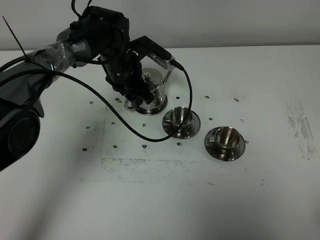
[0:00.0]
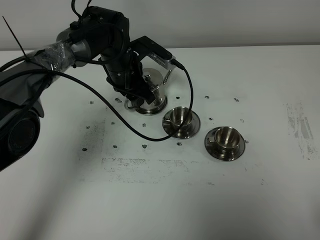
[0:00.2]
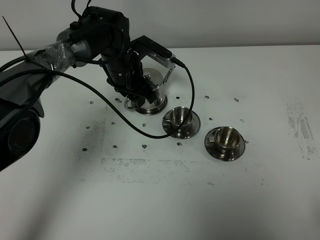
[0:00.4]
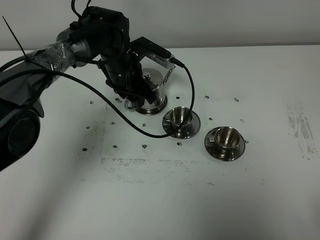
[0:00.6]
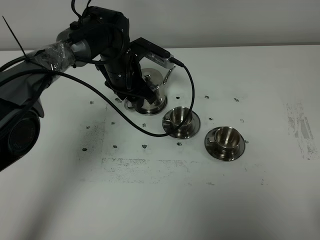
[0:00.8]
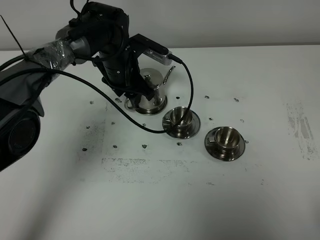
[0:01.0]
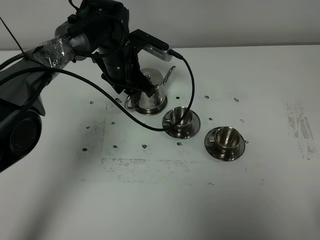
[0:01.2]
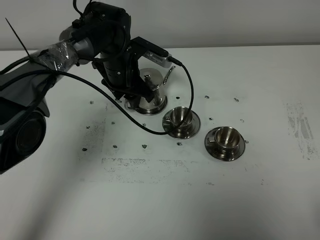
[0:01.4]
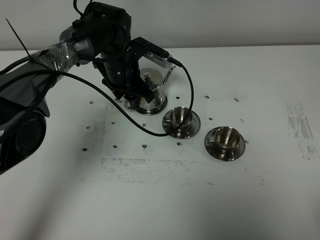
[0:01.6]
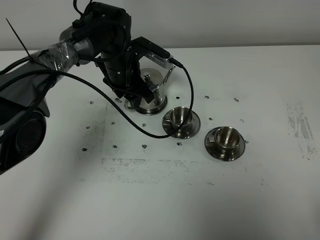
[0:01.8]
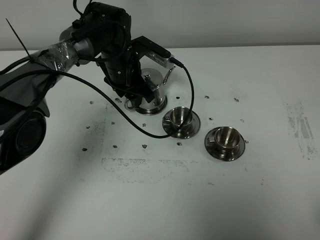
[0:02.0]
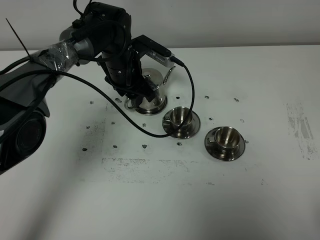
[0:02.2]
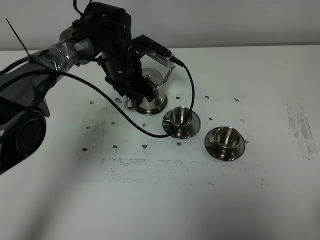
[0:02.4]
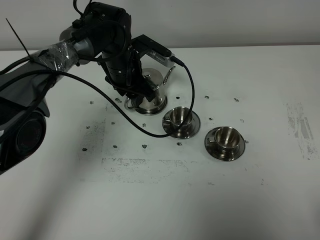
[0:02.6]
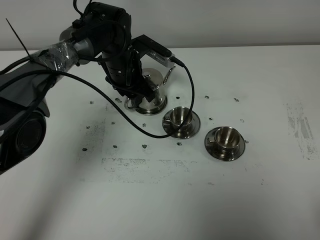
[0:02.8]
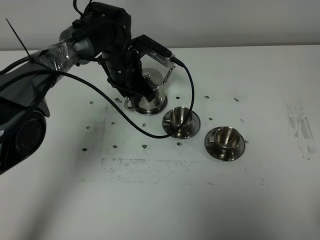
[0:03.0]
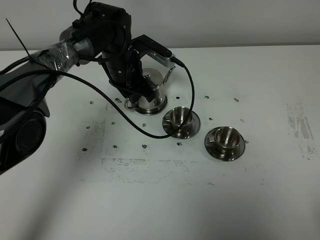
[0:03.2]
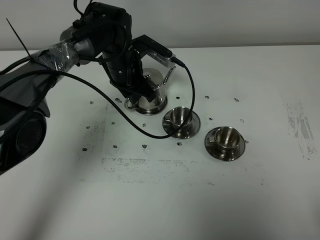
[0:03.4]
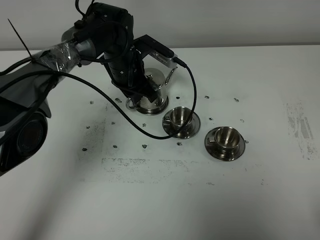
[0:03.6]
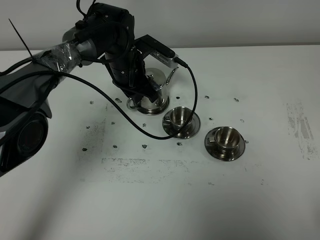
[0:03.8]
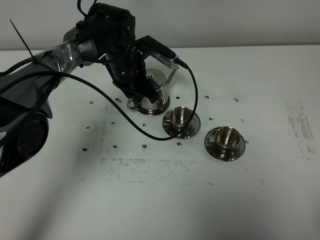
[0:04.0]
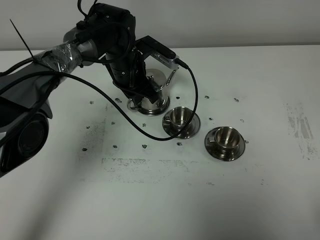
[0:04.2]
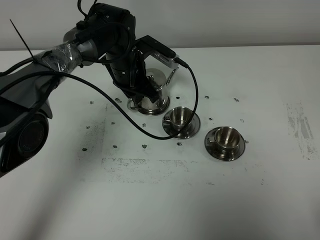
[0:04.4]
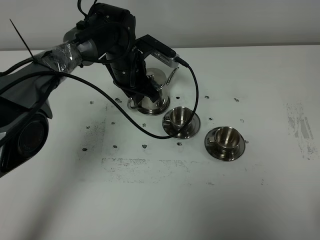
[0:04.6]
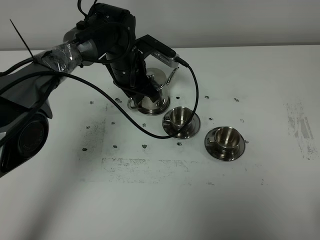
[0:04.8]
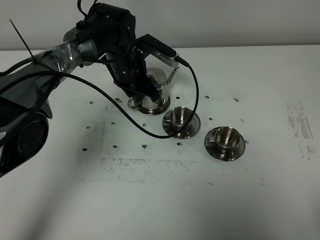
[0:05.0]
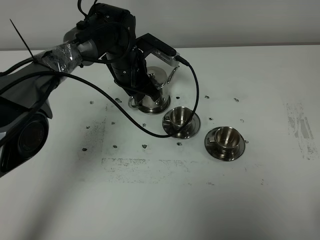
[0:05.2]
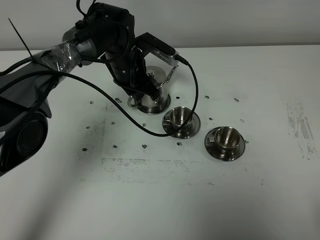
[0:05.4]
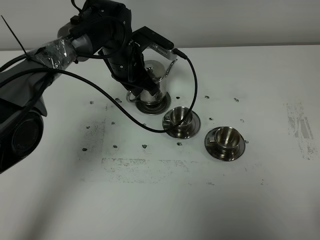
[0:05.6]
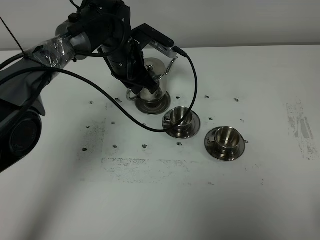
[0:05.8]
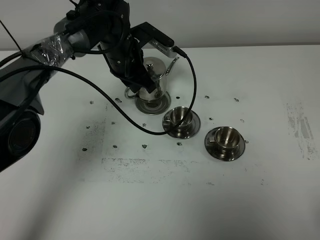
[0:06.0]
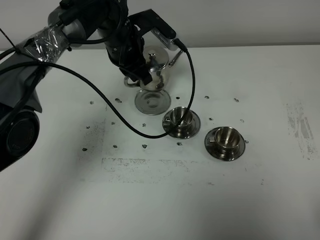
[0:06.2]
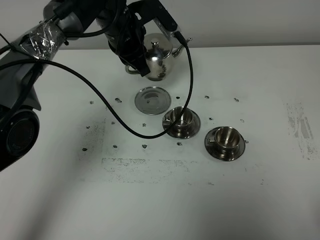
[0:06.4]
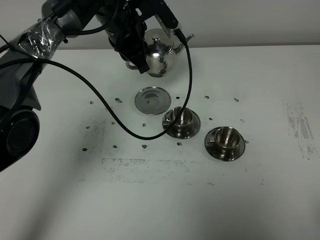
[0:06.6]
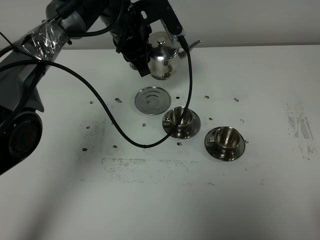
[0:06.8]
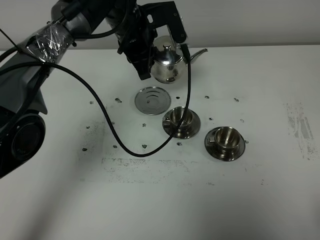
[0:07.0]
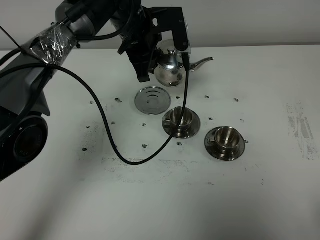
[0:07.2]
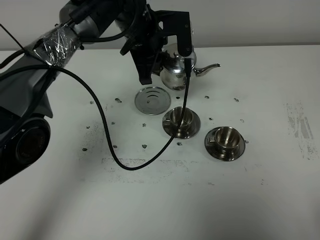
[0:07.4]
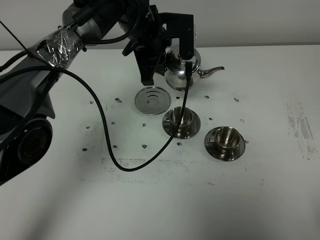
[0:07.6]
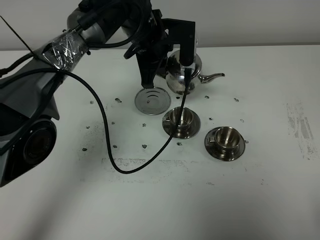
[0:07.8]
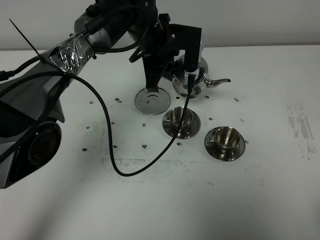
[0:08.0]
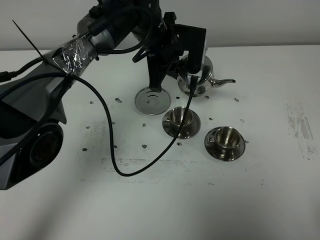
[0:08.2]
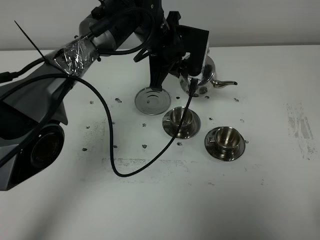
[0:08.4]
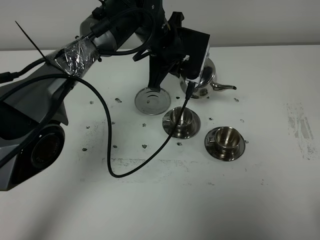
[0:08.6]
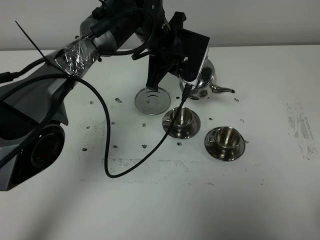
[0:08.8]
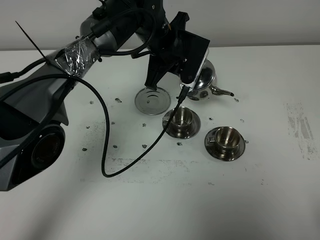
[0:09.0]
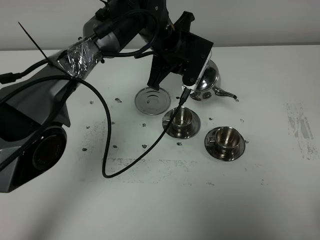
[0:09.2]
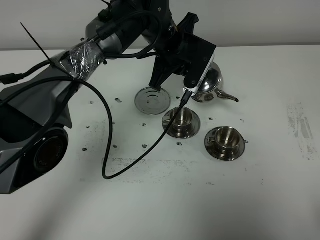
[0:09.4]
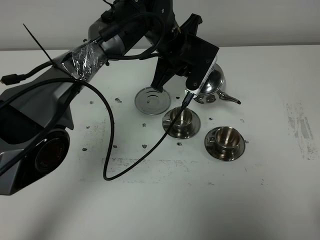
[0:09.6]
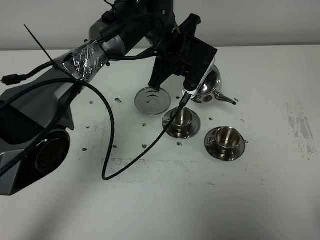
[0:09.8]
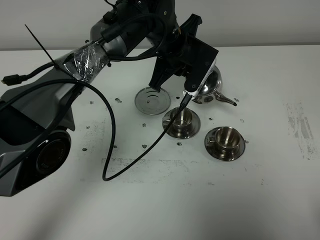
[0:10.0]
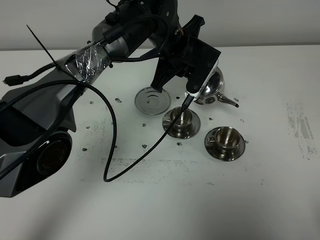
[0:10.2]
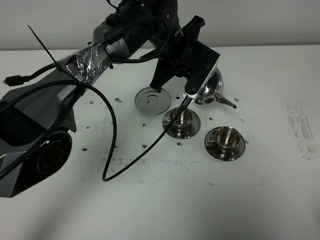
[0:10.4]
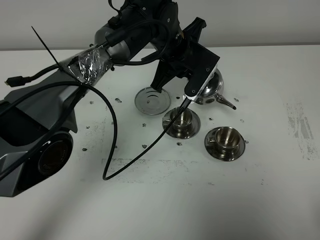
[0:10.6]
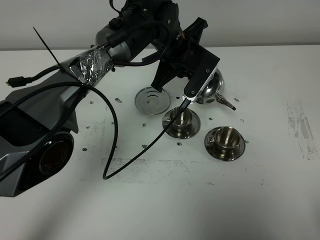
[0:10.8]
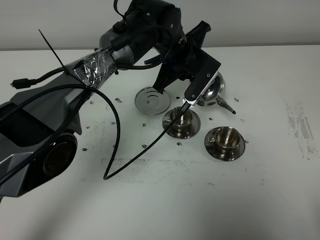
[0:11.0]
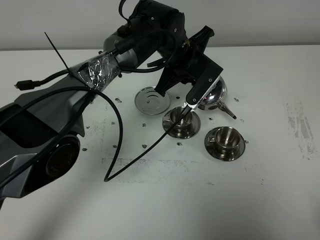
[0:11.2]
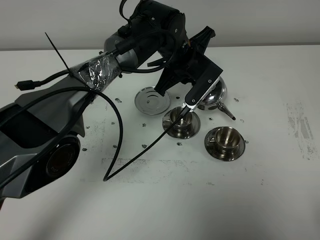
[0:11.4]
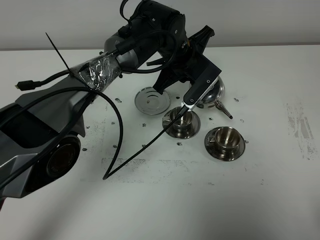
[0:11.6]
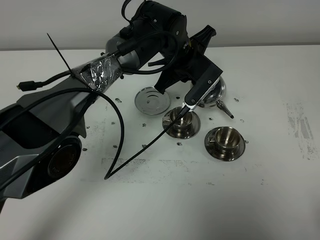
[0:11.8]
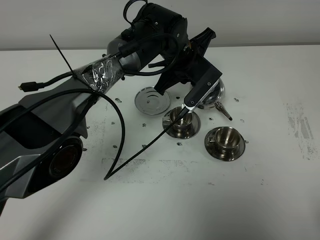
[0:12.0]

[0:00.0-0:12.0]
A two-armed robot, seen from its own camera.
Task of the whole recording: grasp the stainless steel teapot and pour the tea into the two stainless steel teacups one by one, put the stainless steel teapot back in its original place.
Step, 0:00.0 to 0:05.8: Pick up the teapot with the left gripper.
0:00.0 to 0:01.6: The grippers make only small movements.
0:01.6 to 0:03.0: The left gripper closes.
0:03.0 to 0:04.4: Both grippers stay put.
0:04.4 to 0:06.0: The grippers make only small movements.
0:06.0 to 0:07.6: The left gripper travels upward by approximately 5 cm.
0:09.0 to 0:10.4: The grippers make only small movements.
0:10.4 to 0:12.0: The grippers move only a little.

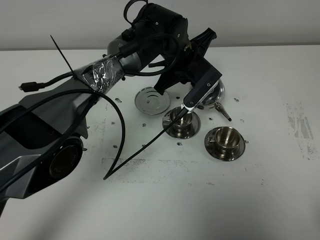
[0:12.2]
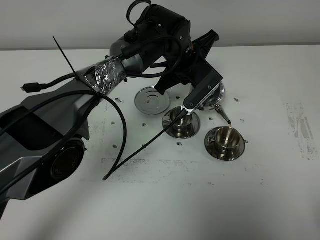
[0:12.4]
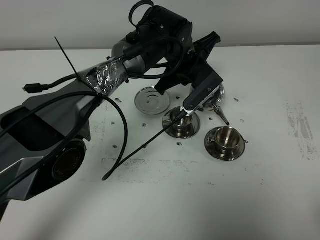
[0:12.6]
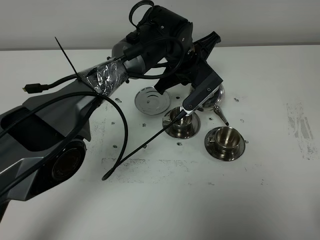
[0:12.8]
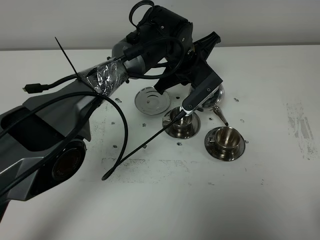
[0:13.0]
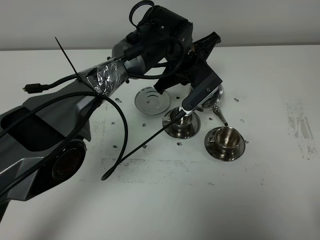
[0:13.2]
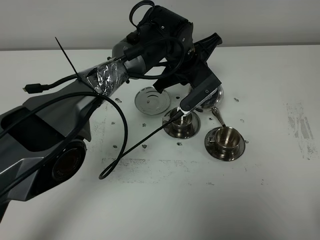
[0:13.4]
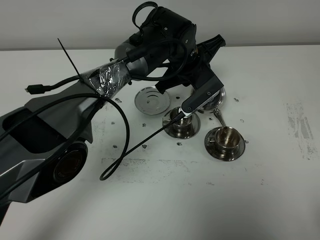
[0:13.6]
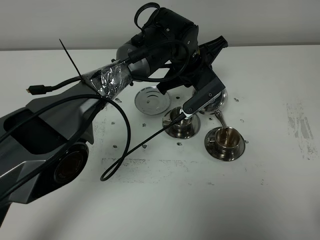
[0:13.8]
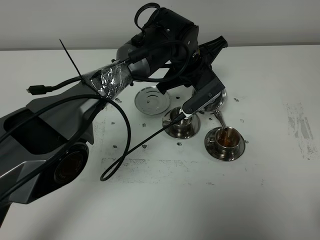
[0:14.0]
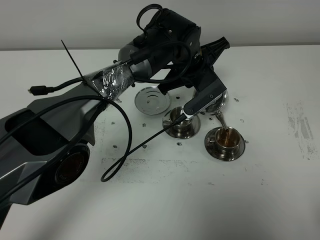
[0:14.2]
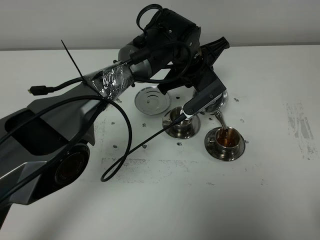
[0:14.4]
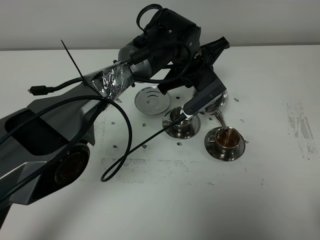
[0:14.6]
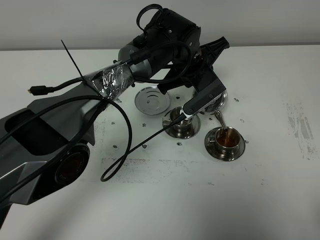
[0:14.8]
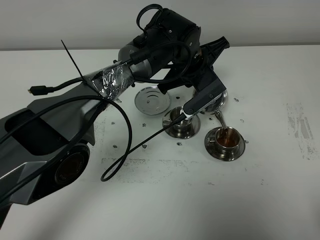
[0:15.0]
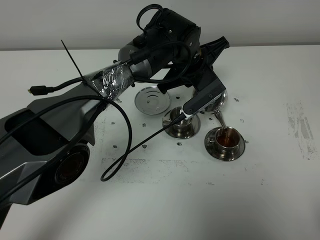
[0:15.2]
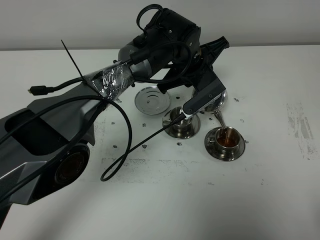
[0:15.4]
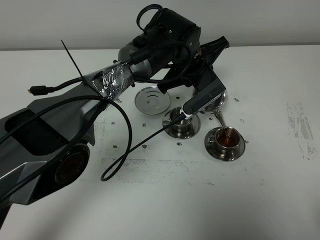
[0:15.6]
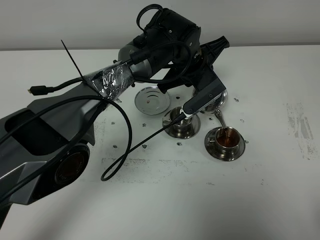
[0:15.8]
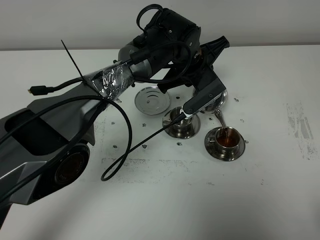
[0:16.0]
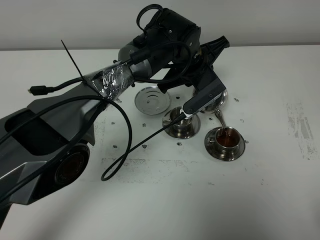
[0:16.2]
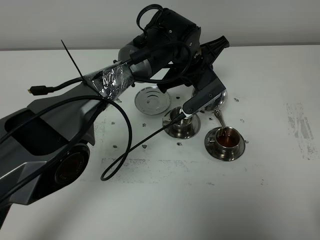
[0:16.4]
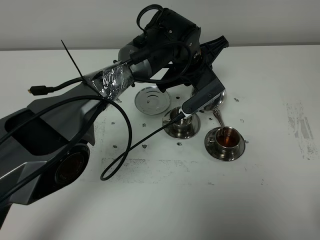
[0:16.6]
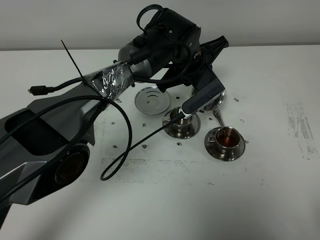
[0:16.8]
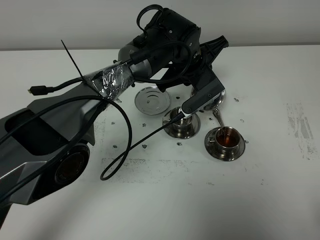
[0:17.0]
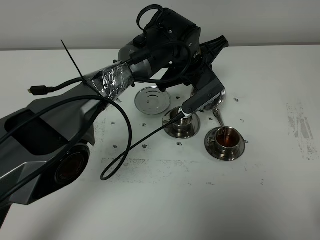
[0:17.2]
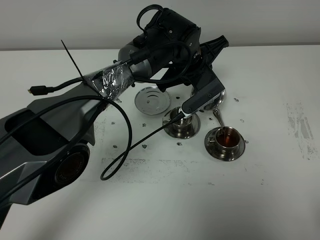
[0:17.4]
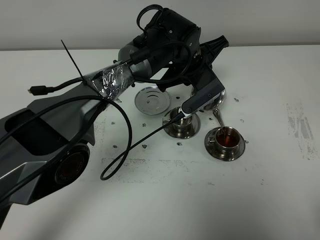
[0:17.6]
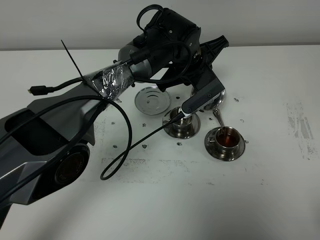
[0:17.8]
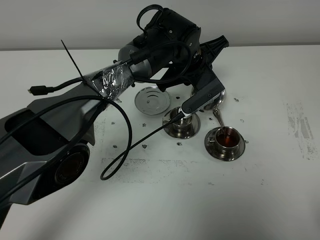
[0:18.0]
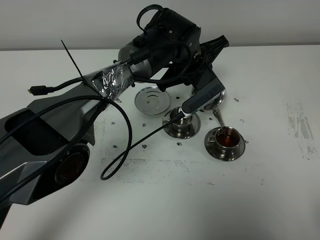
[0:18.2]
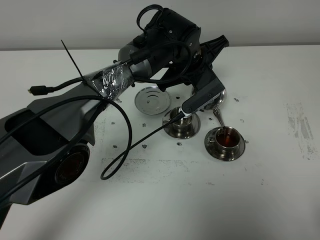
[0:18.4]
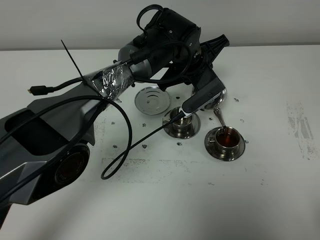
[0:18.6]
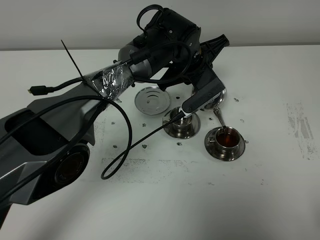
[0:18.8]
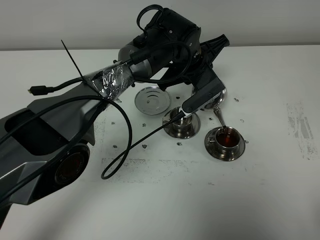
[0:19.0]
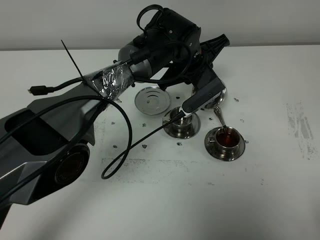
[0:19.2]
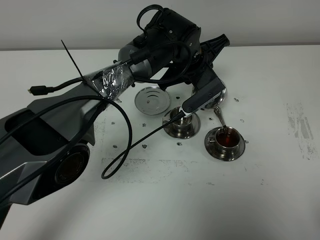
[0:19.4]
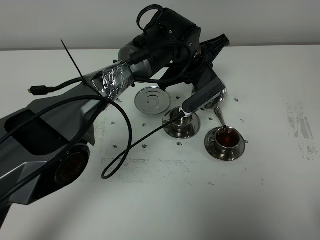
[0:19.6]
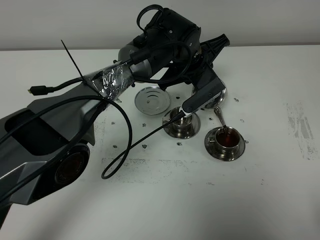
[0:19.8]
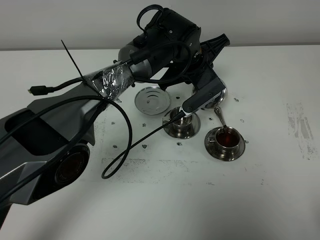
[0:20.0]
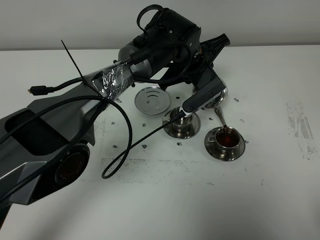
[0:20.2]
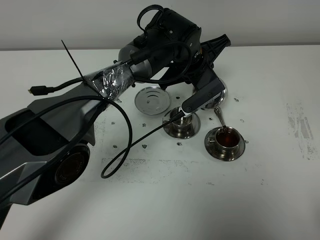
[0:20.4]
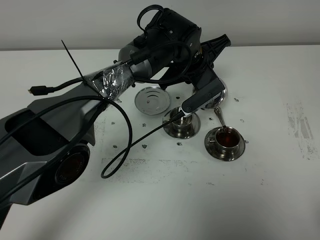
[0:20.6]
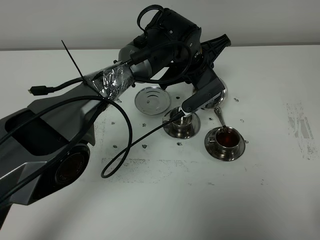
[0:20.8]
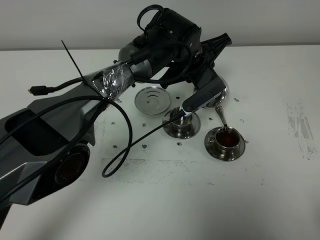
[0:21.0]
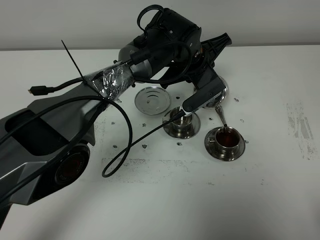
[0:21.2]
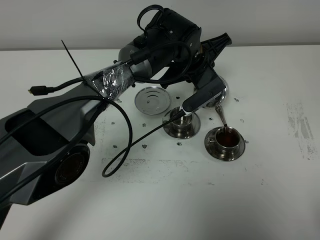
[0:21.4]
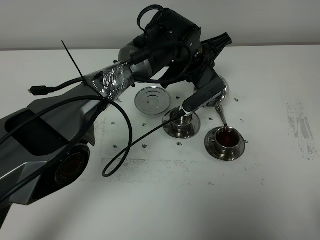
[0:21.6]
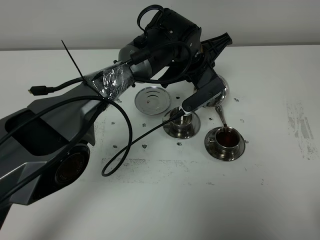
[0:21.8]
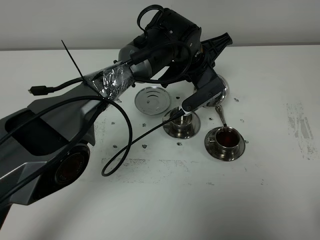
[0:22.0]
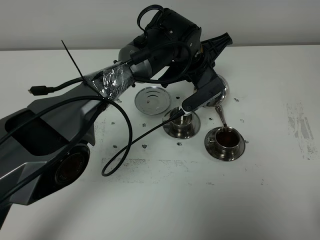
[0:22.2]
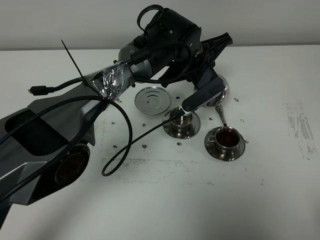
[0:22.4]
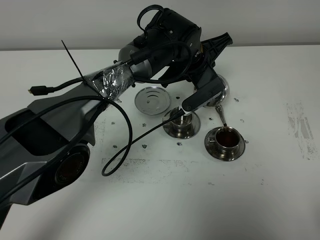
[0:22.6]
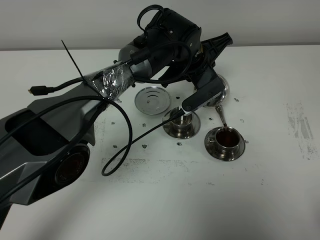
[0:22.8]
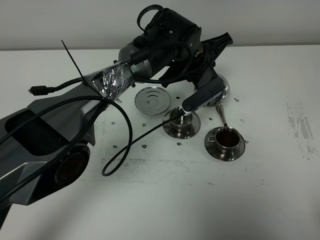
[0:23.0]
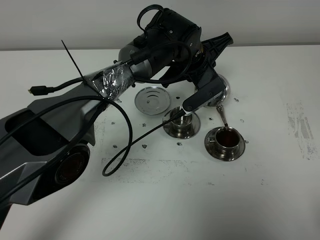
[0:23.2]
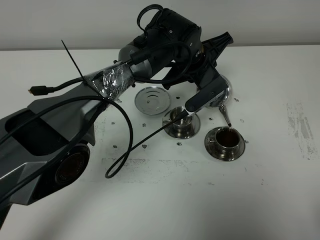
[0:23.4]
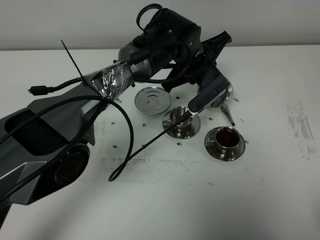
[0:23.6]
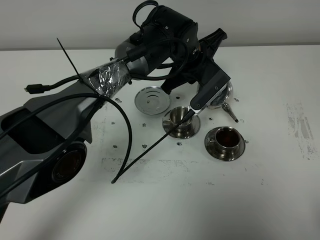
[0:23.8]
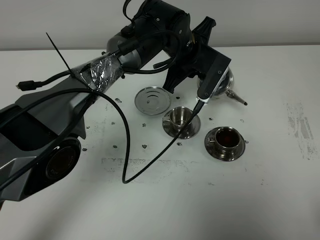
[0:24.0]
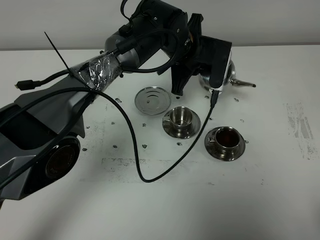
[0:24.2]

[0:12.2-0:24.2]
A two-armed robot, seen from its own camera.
Task of the whole recording: grasp the stainless steel teapot and pour the tea into the two stainless steel teacups one by one, put the stainless steel teapot back in its original place.
Step, 0:12.2 to 0:23.4: Pour tea into the teacup with the left gripper.
0:12.2 to 0:13.8: The grippers make only small movements.
0:13.8 to 0:19.8: The two grippers keep their place.
0:19.8 to 0:22.6: The two grippers keep their place.
